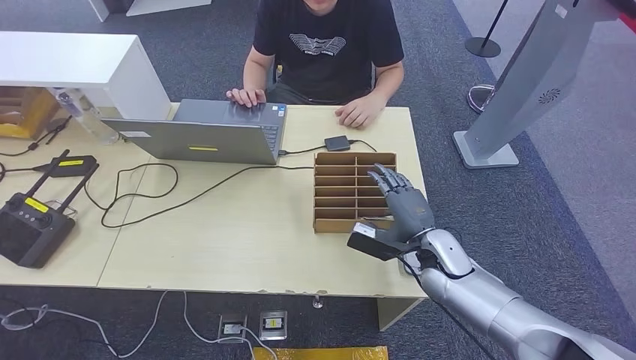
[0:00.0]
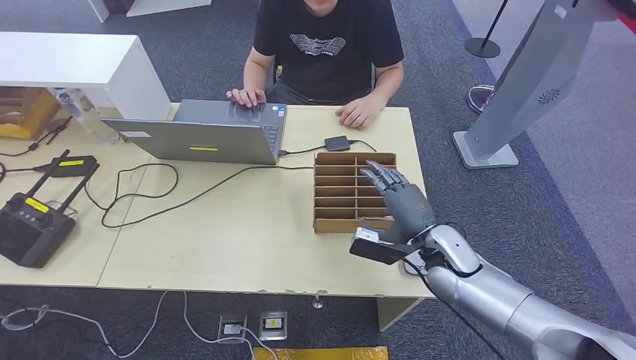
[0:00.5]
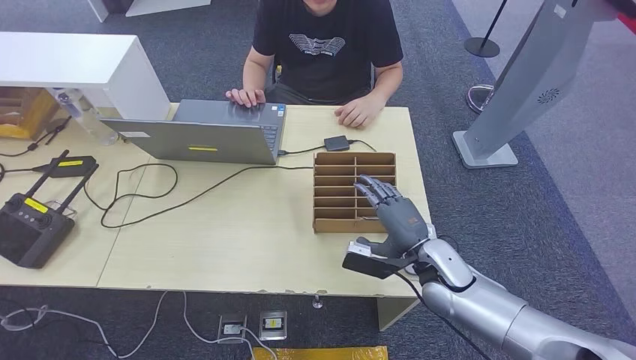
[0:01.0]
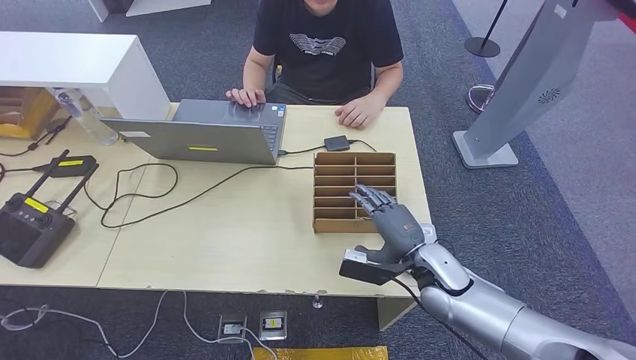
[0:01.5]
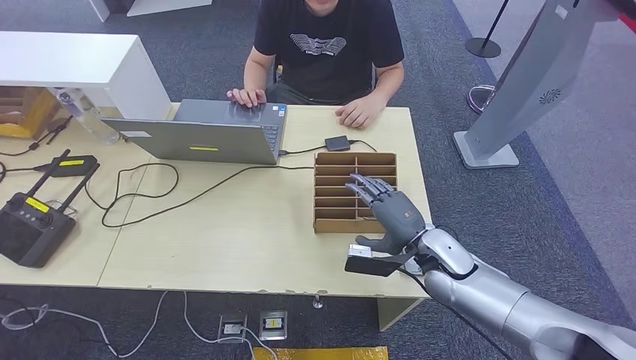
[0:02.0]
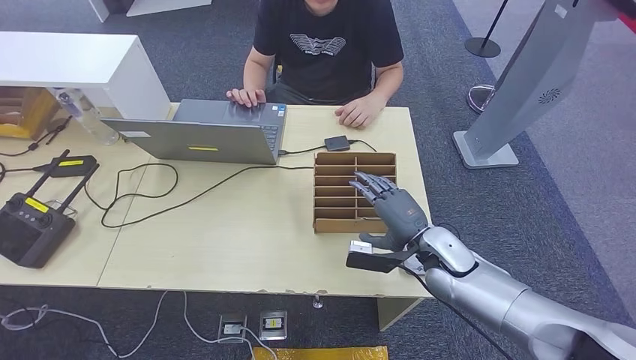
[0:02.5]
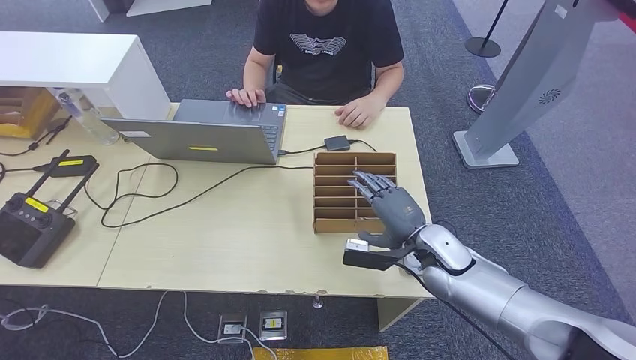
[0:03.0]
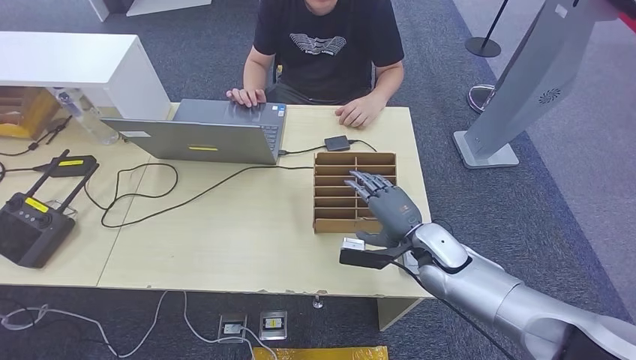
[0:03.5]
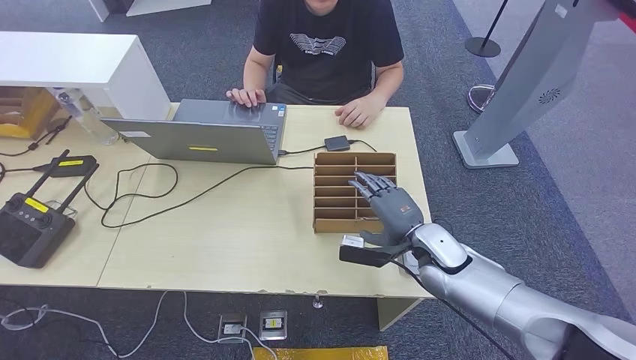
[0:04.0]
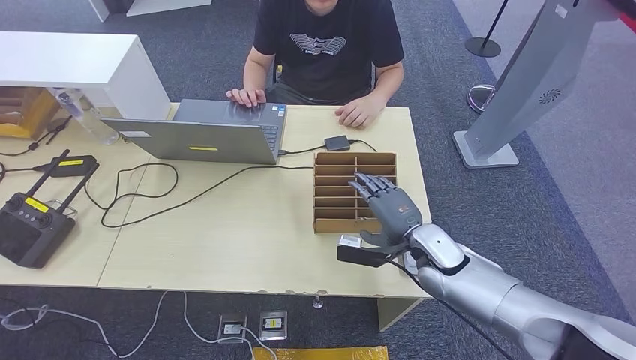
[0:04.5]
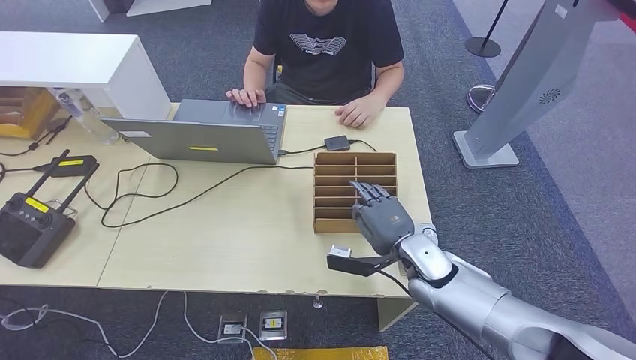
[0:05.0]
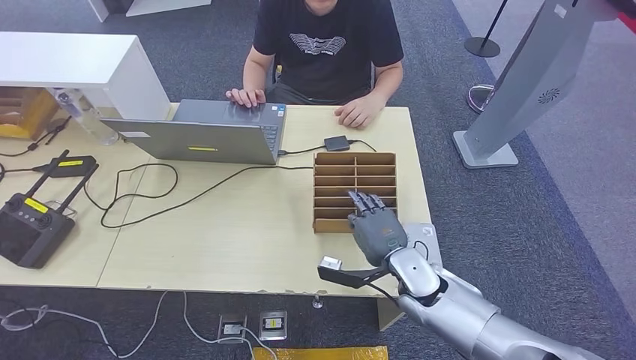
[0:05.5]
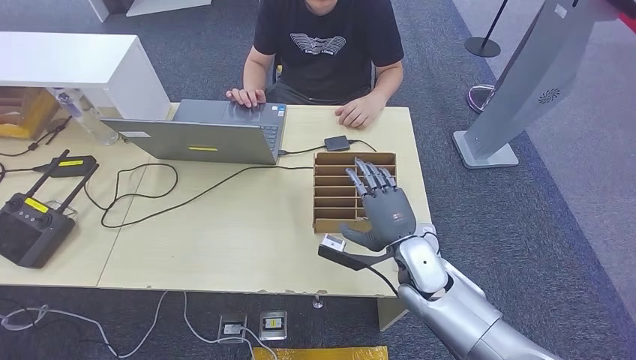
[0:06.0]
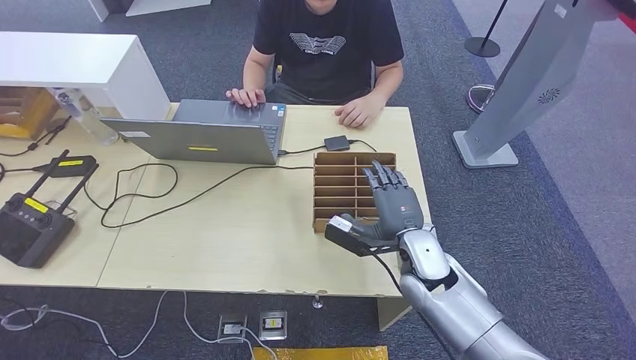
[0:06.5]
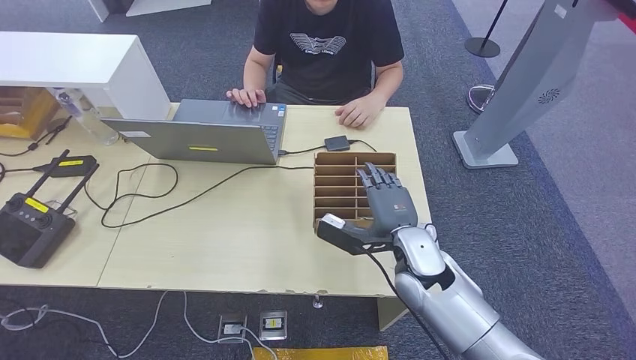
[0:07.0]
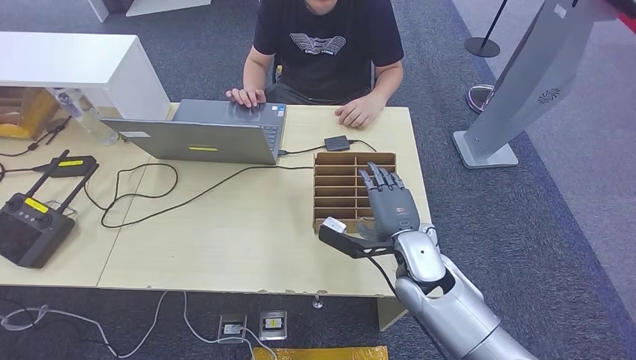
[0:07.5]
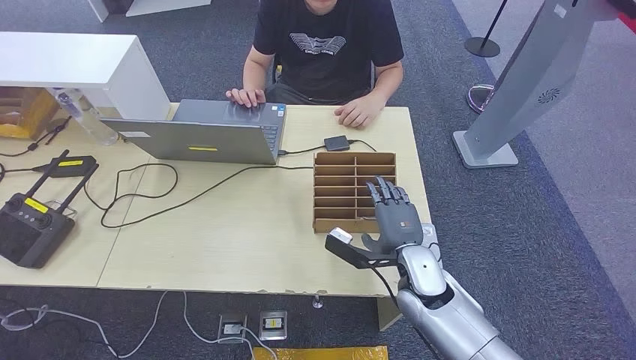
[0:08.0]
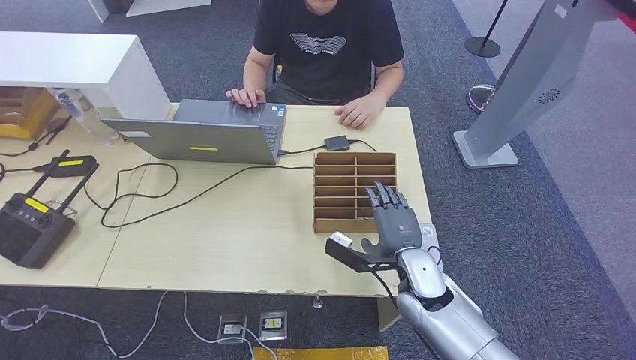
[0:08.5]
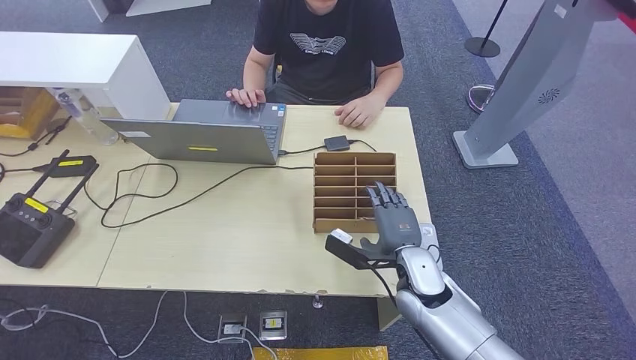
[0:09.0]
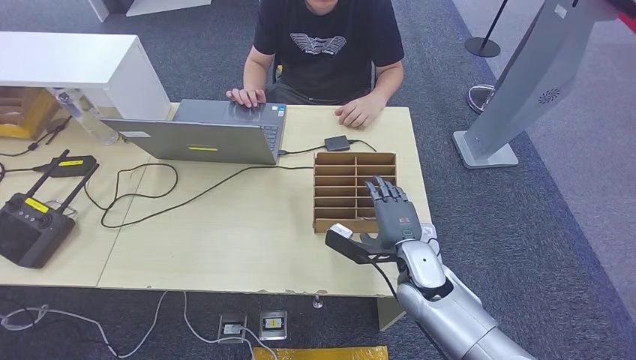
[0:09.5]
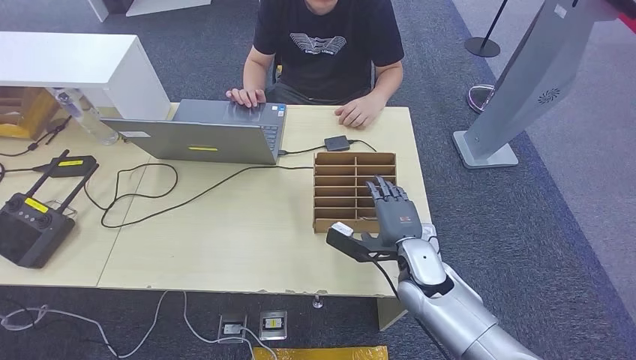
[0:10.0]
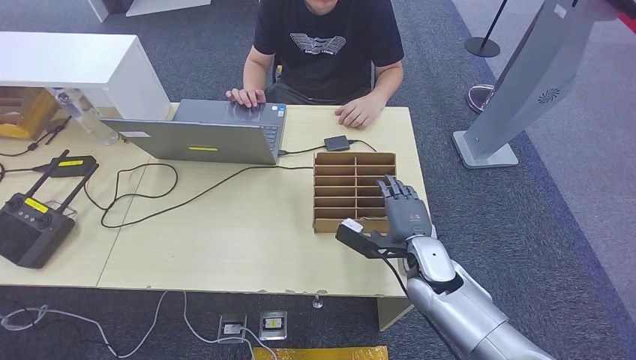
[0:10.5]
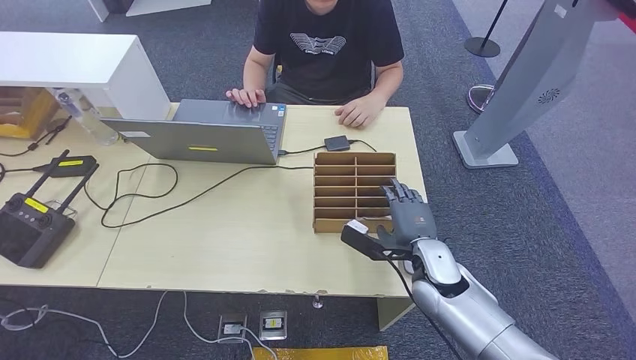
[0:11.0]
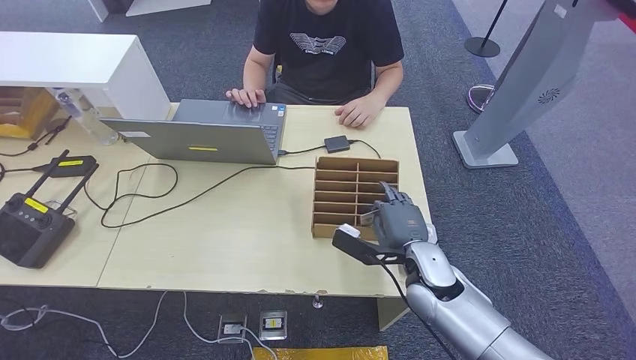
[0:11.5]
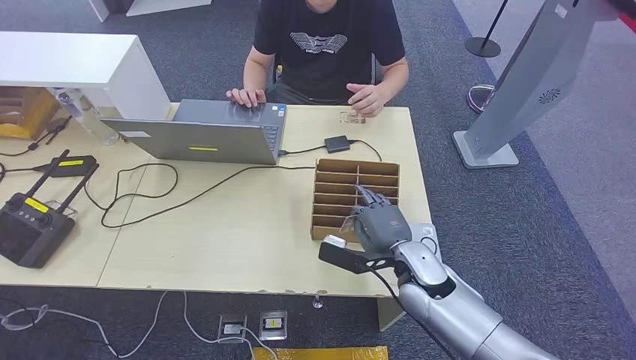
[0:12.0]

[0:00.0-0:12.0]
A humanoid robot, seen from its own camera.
0:00.0 to 0:04.0: The hands stay close to where they were, moving slightly.
0:04.0 to 0:06.0: The right hand heads to the left, covering approximately 5 cm.
0:06.0 to 0:08.0: The hands move only a little.
0:08.0 to 0:12.0: The hands move only a little.

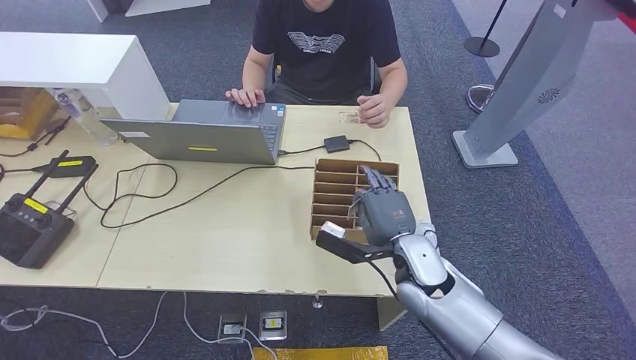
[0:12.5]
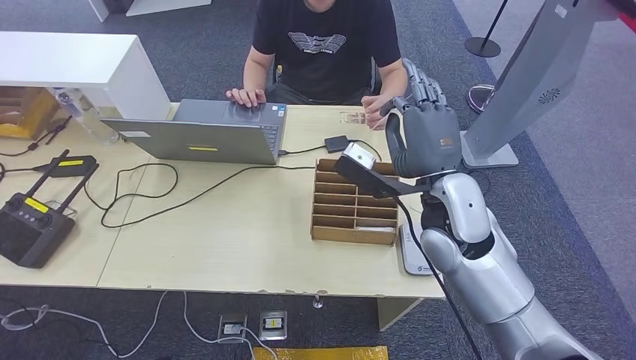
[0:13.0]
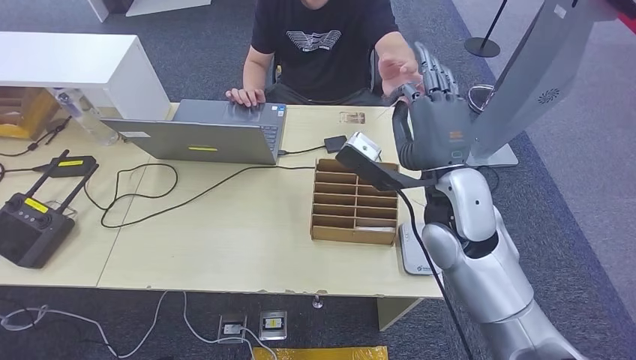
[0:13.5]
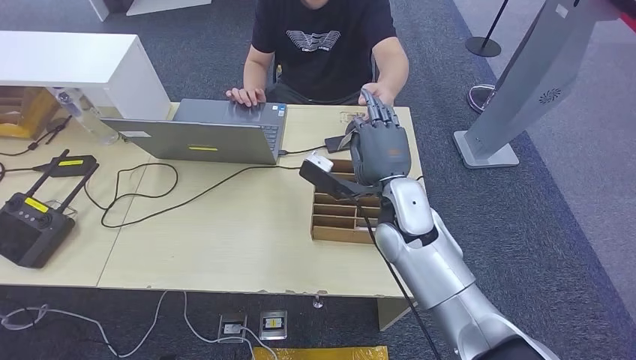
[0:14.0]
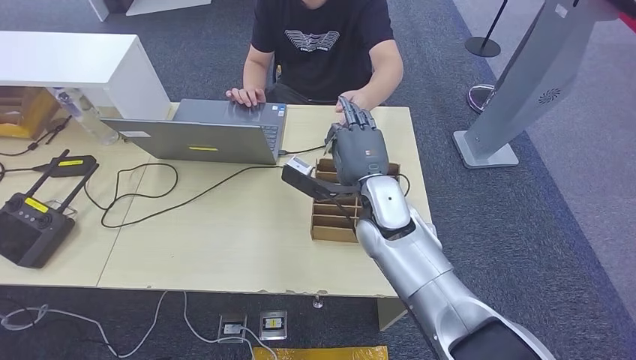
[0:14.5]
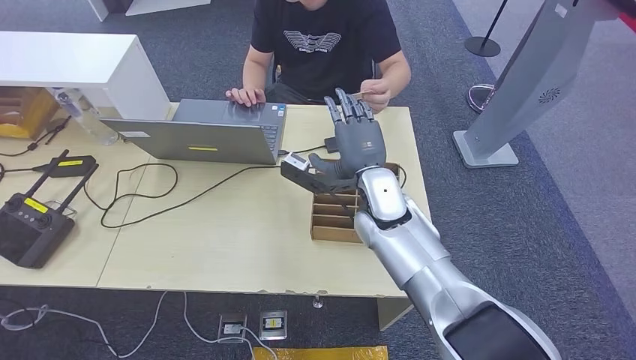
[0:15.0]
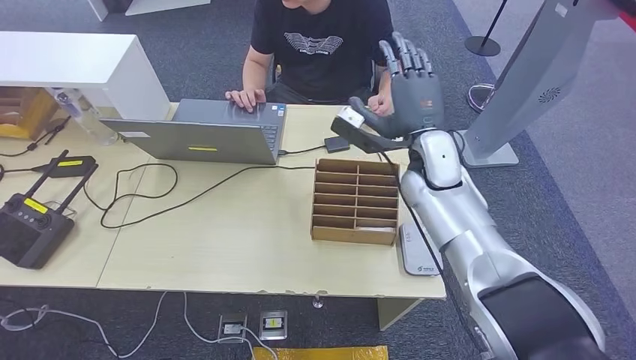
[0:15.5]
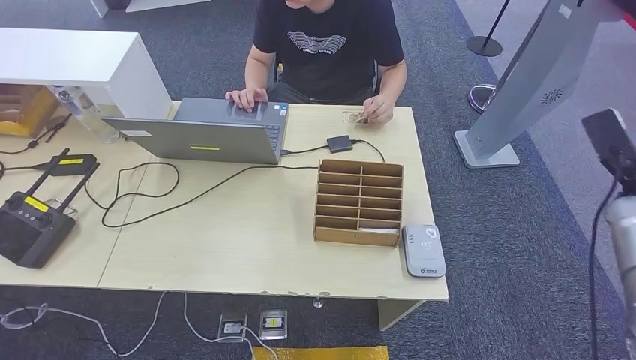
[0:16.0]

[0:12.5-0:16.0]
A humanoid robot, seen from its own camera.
Step, 0:14.5 to 0:16.0: Hand the room key to the person.
0:12.5 to 0:14.5: The right hand moves upward, to the left and forward, some 15 cm.
0:14.5 to 0:16.0: The right hand is displaced to the right by approximately 40 cm.
